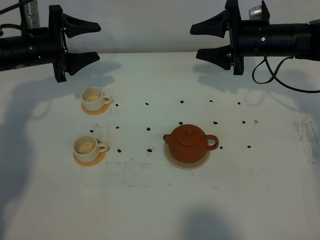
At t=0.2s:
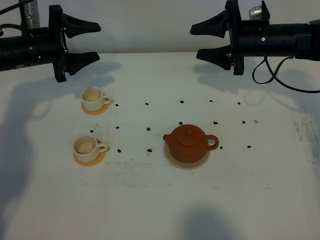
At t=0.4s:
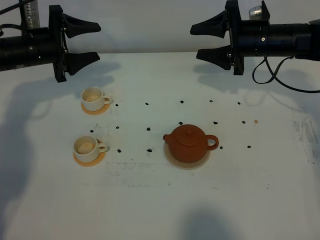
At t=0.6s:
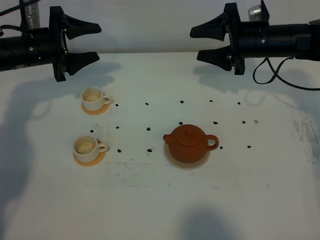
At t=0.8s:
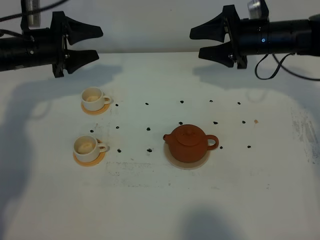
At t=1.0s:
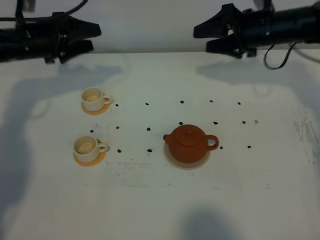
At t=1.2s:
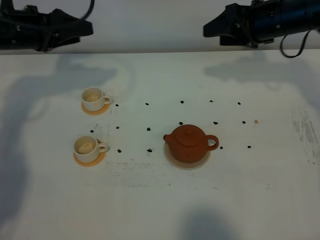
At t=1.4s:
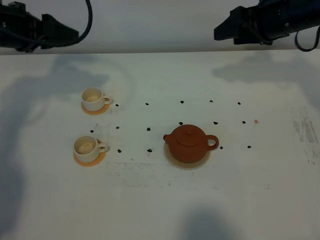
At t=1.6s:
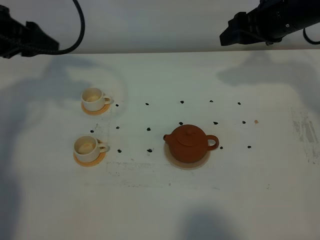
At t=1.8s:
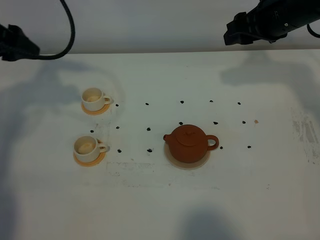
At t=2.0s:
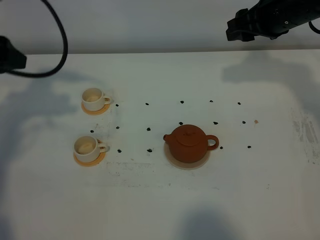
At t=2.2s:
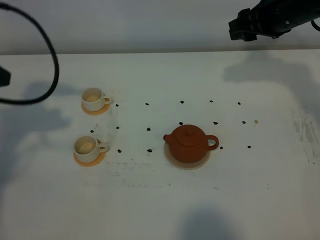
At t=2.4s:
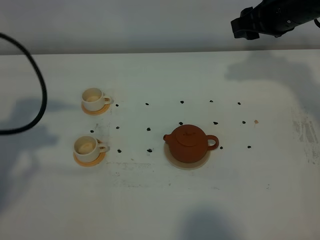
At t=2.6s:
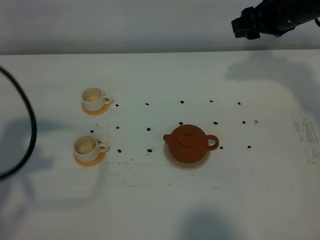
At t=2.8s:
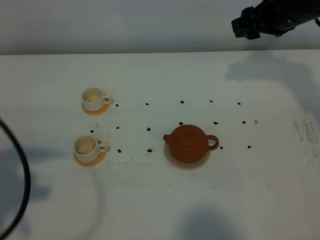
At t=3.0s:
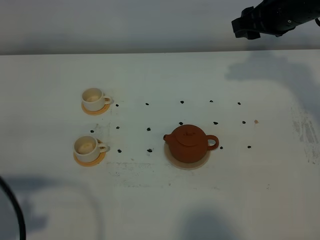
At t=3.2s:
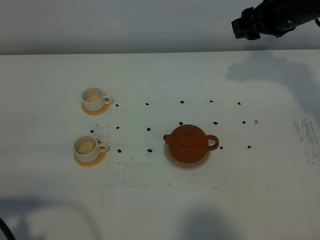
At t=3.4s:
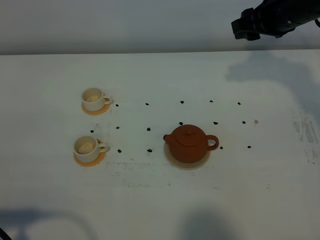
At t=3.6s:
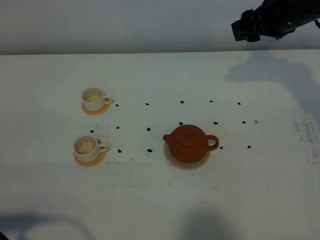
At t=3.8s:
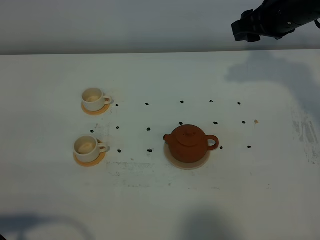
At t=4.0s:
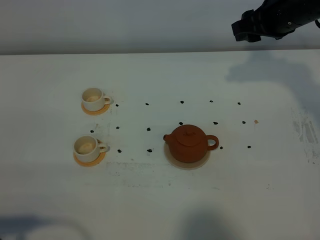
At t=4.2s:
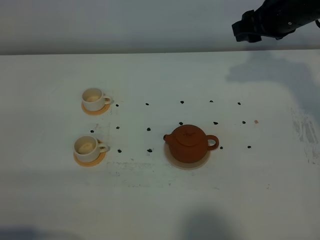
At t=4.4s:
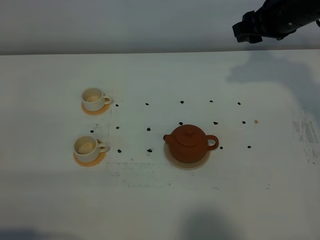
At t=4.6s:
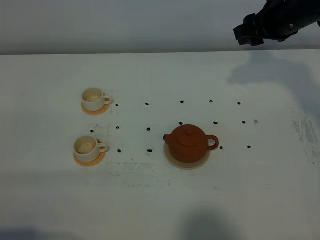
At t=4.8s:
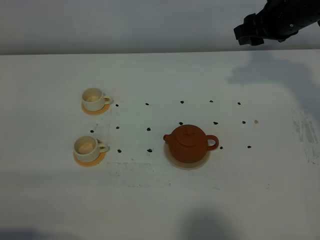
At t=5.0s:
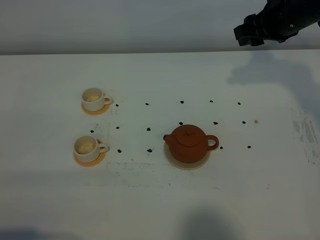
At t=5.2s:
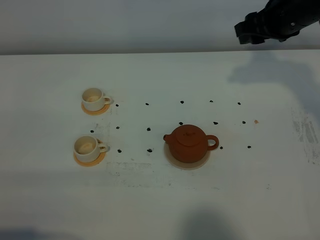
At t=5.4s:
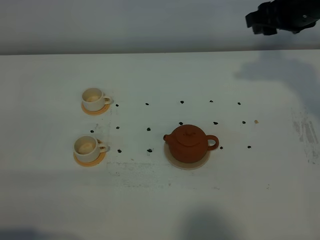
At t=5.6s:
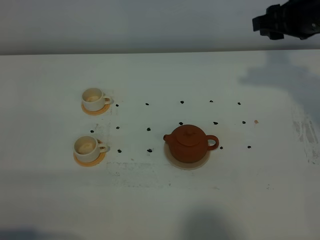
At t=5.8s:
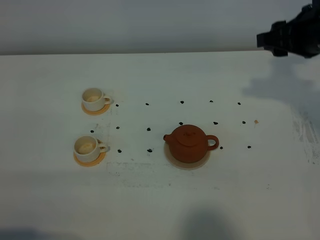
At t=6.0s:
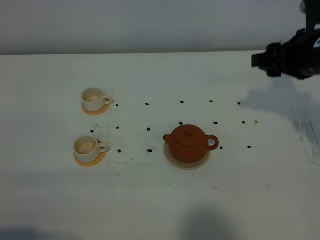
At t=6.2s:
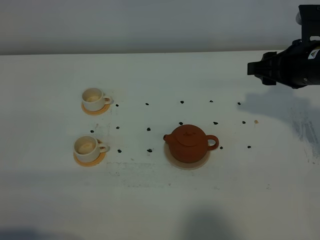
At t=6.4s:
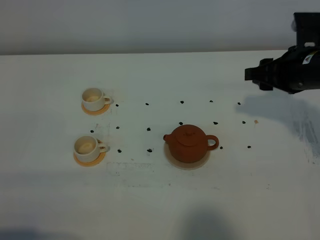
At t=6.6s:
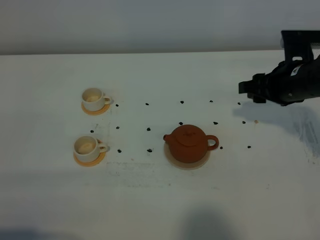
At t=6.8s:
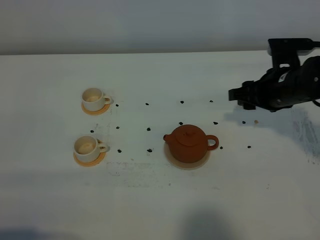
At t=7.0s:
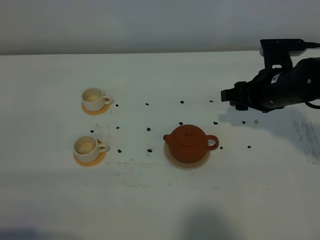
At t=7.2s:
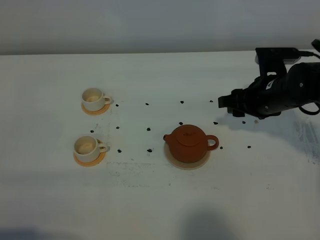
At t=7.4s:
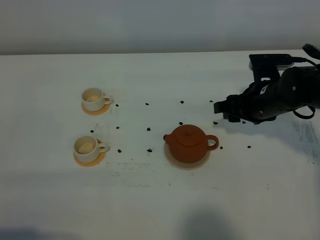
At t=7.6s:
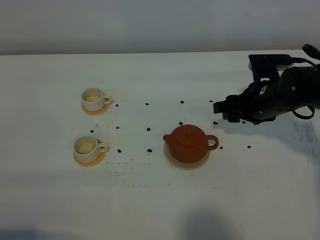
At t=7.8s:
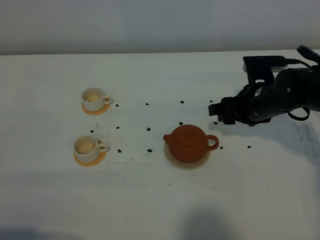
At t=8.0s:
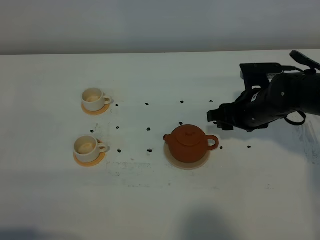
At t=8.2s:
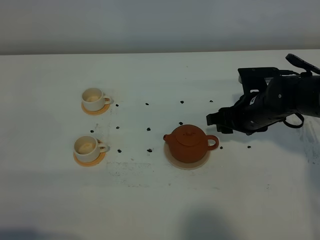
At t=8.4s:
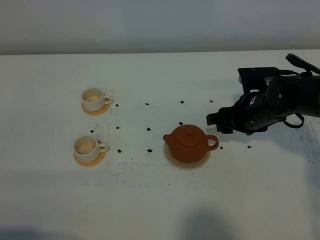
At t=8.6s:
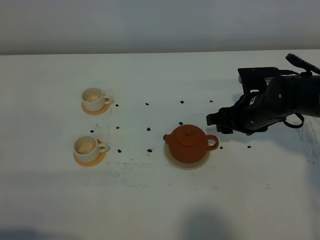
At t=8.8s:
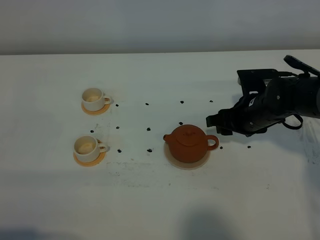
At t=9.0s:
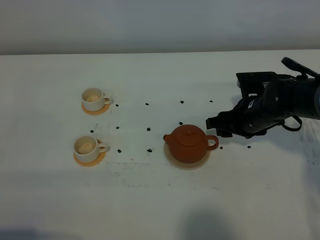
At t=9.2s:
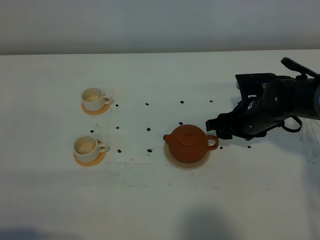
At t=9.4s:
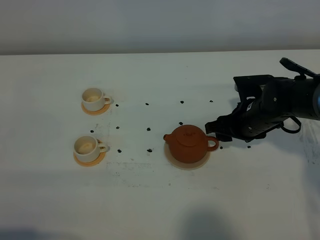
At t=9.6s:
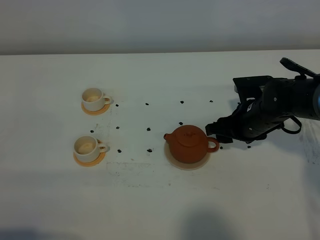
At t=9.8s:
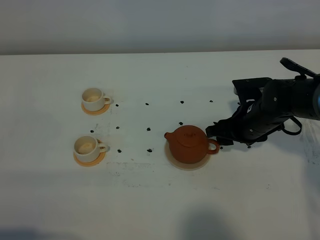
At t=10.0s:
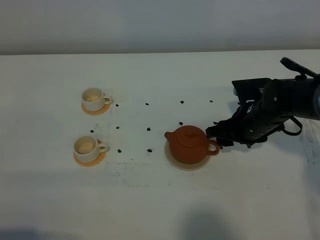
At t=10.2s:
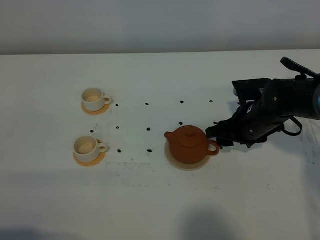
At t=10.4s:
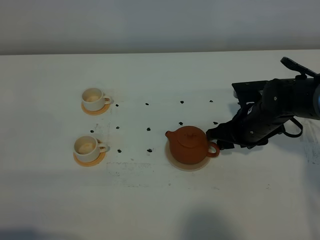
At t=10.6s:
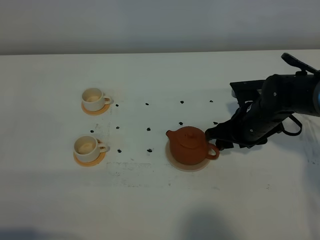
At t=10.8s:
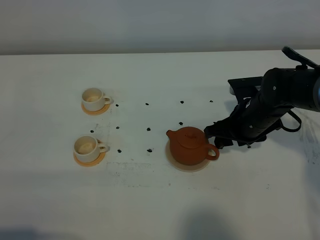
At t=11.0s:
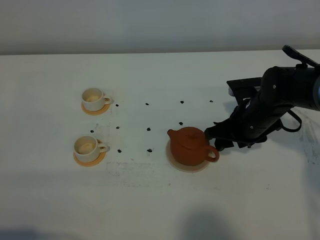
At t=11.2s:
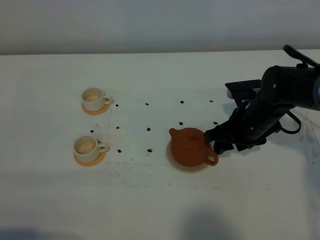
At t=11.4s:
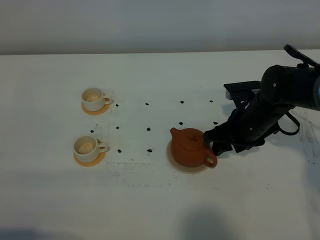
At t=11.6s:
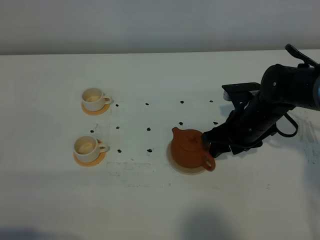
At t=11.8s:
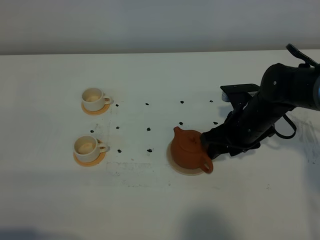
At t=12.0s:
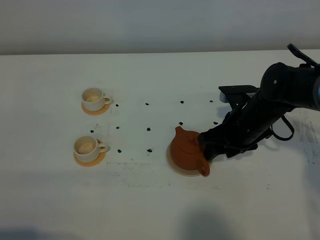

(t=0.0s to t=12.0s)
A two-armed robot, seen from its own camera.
Task of the whole recording: grasp the brown teapot and pour the tea into the two white teacups one by one, put the brown teapot back in its original place.
t=0.0s - t=1.6s: The left gripper moves upward and backward, some 15 cm. The right gripper travels upward by about 10 cm.
t=1.6s - t=3.0s: The left gripper is displaced backward by approximately 30 cm.
t=3.0s - t=4.4s: The left gripper travels backward by roughly 5 cm.
t=4.4s - t=6.0s: The right gripper goes roughly 10 cm backward.
t=6.0s - t=7.6s: The right gripper shifts roughly 10 cm downward.
t=7.6s - t=10.4s: The grippers make only small movements.
t=10.4s - t=12.0s: There are only small adjustments of the grippers.

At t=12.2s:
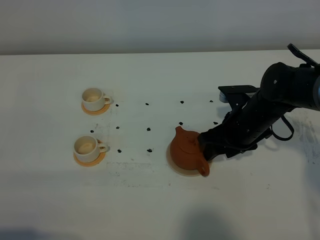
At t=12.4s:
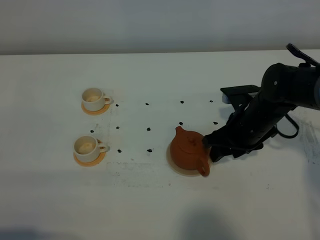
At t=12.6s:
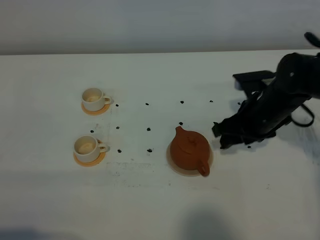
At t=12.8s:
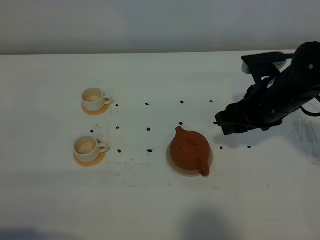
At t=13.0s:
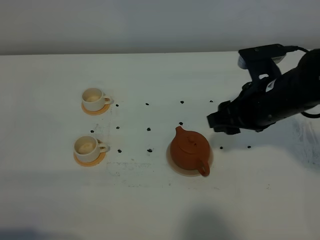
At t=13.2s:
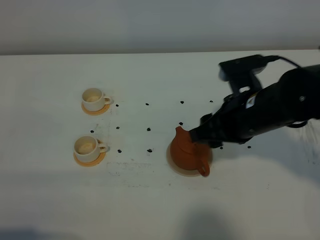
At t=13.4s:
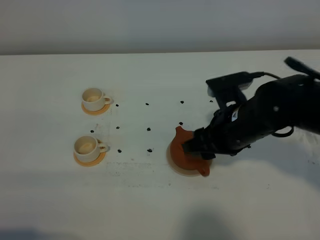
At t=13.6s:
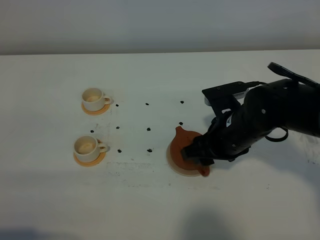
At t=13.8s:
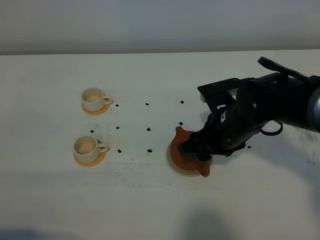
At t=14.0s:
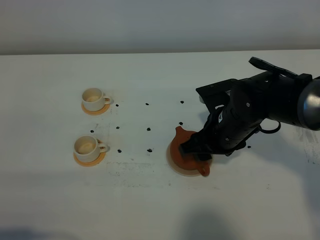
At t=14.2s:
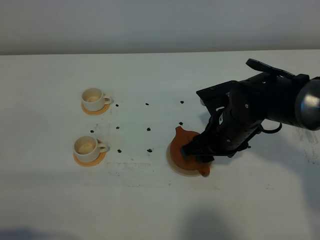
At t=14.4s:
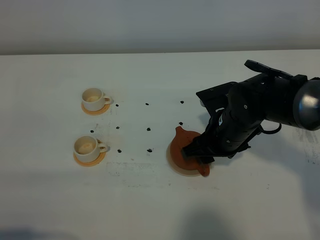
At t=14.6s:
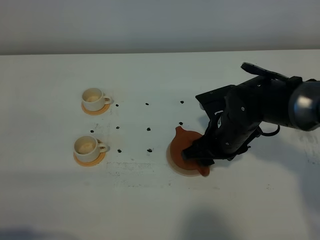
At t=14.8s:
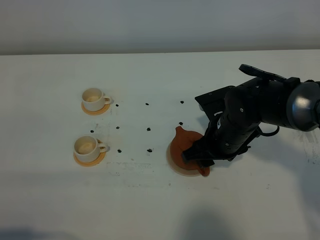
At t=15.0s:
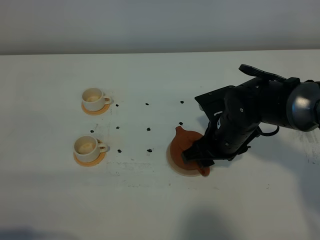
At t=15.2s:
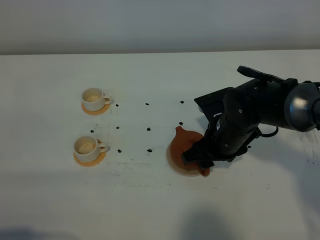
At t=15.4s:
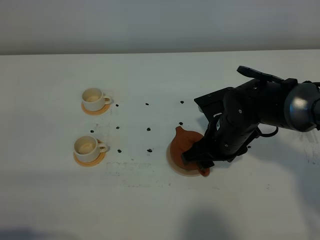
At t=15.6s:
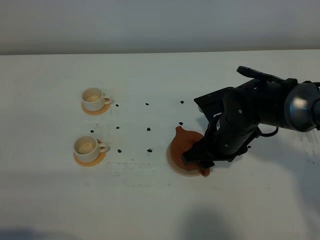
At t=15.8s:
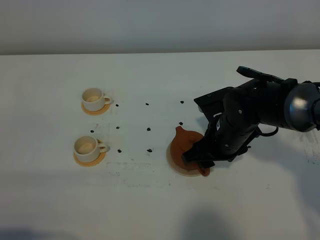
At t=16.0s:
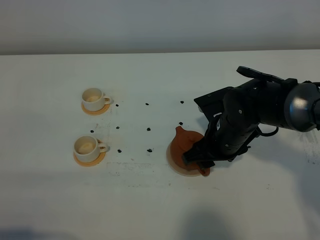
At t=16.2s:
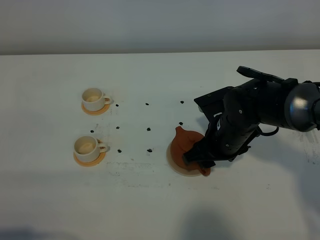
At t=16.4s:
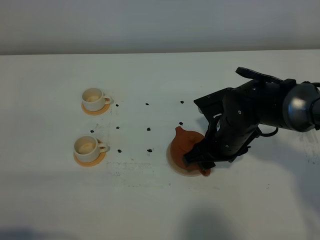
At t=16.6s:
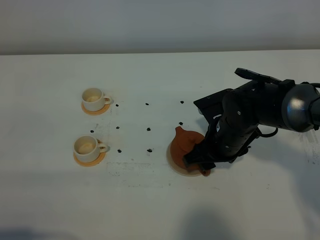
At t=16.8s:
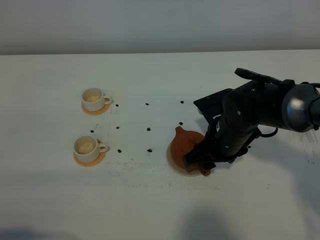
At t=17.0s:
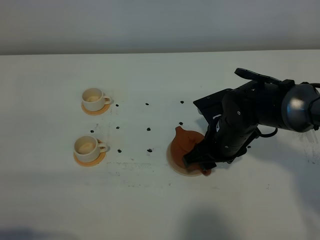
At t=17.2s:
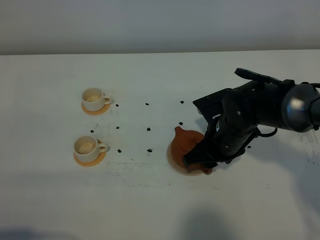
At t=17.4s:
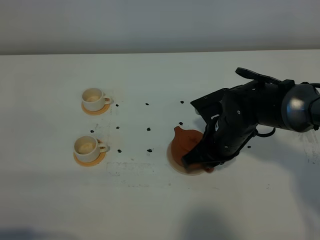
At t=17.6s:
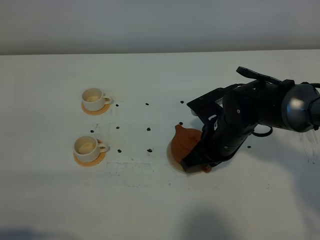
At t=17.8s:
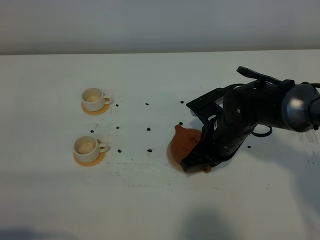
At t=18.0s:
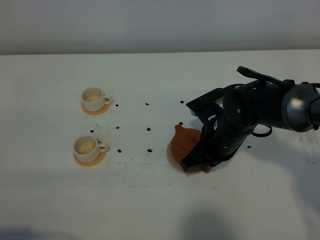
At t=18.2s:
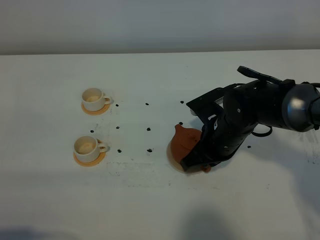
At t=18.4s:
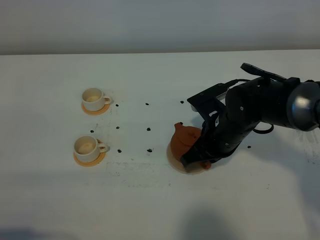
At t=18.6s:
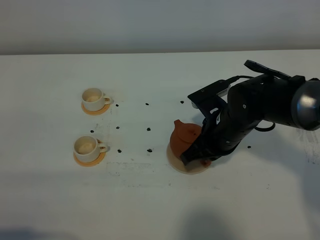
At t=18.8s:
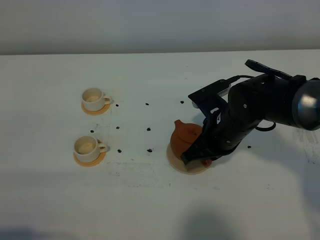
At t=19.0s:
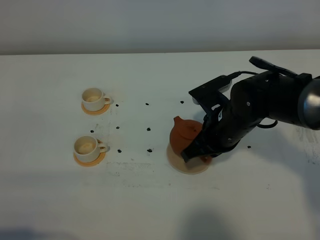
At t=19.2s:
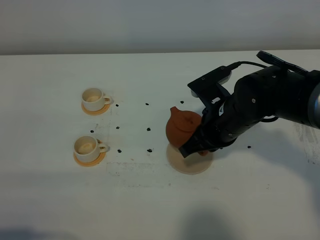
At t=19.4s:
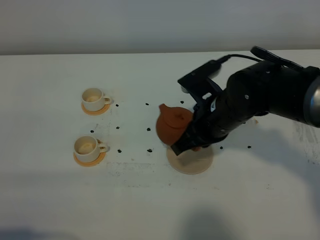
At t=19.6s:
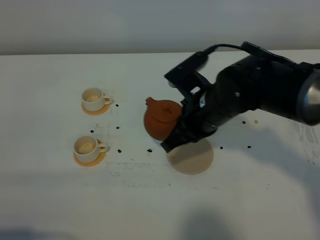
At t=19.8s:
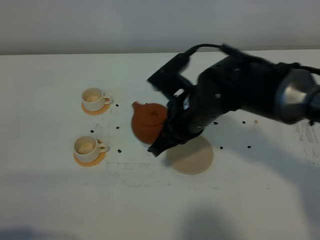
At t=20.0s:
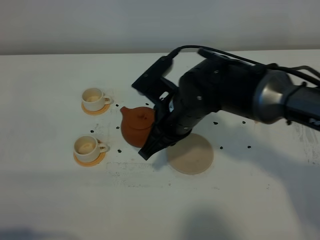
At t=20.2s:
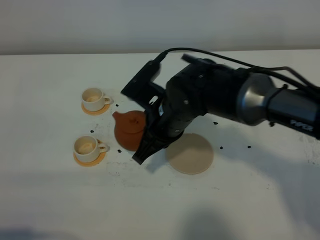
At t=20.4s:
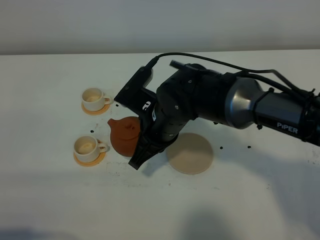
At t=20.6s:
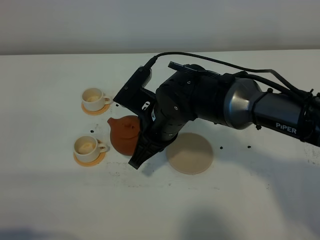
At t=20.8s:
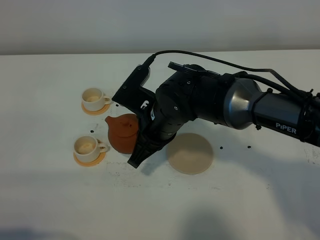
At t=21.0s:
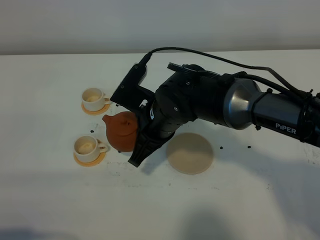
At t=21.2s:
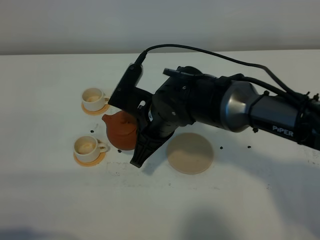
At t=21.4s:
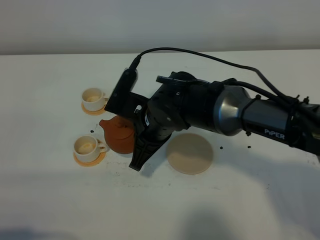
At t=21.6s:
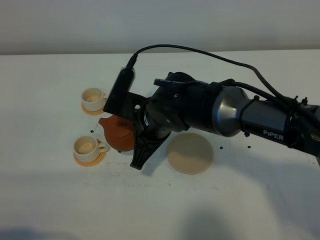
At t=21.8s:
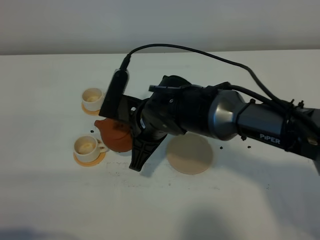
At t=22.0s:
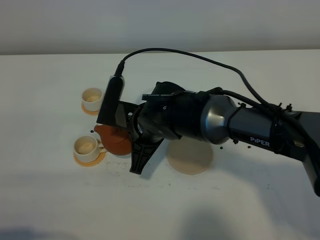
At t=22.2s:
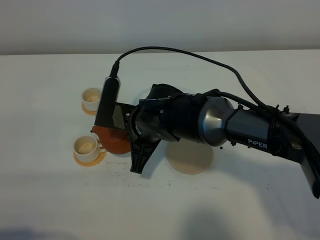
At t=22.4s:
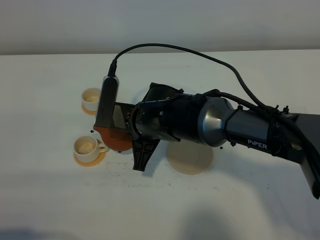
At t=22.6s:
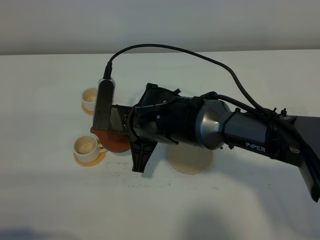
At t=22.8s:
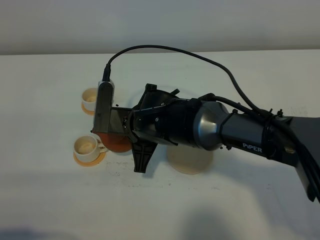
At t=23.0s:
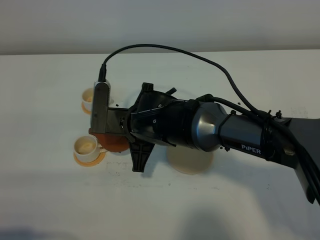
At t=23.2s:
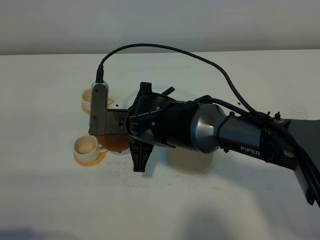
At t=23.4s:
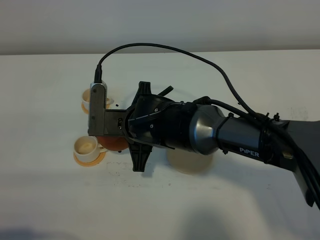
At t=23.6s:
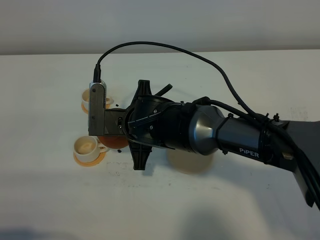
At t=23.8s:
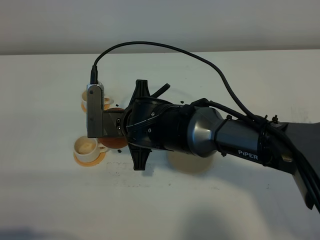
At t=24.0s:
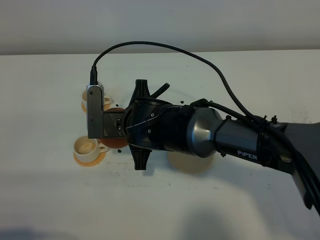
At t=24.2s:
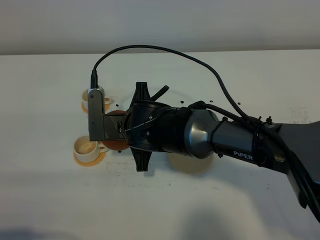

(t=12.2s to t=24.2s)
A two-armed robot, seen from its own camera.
Task of the whole recording: grasp the brown teapot and pour the tea into the two white teacups one by one, put the brown teapot back in its original place.
Step, t=12.2s - t=18.6s: Pick up the teapot with the right gripper.
t=12.2s - t=13.8s: The right gripper reaches approximately 10 cm upward, then returns.
t=13.8s - t=15.2s: The grippers make only small movements.
t=15.2s - t=16.6s: Both grippers stay put.
t=16.6s - t=18.2s: The right gripper closes.
t=18.2s - t=19.8s: The right gripper travels upward and to the left by about 10 cm.
t=19.8s - t=21.2s: The right gripper travels to the left by roughly 5 cm.
t=22.6s - t=24.2s: The grippers stay close to where they were, moving slightly.
